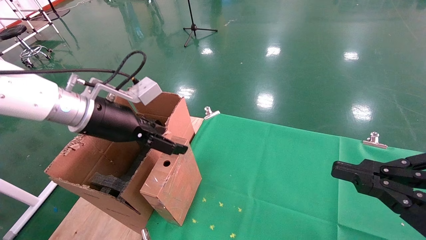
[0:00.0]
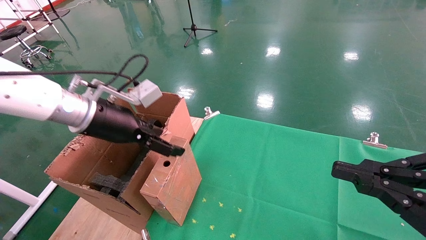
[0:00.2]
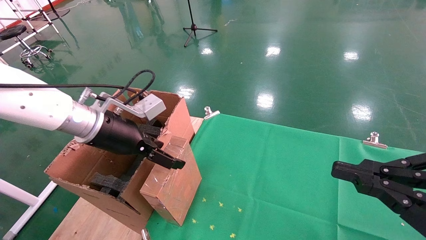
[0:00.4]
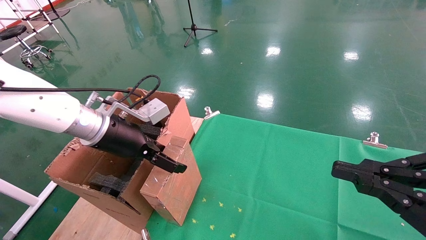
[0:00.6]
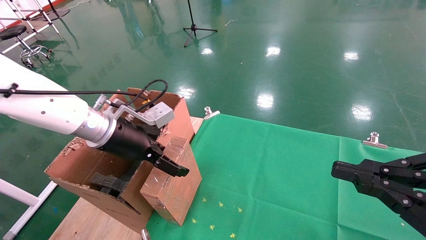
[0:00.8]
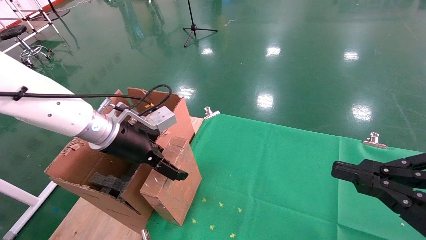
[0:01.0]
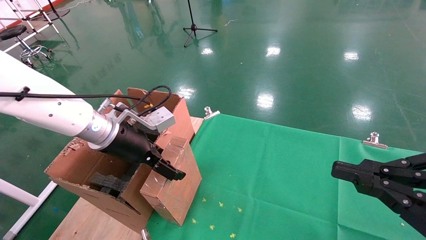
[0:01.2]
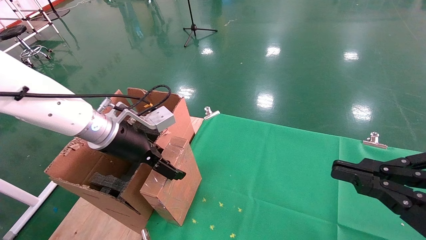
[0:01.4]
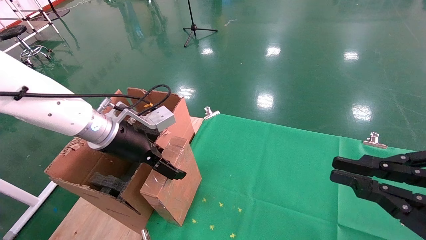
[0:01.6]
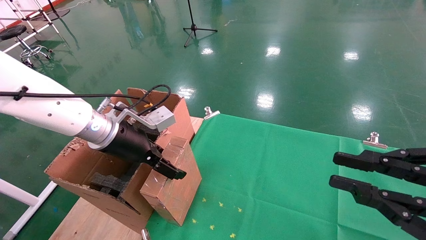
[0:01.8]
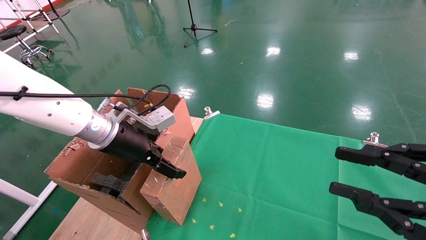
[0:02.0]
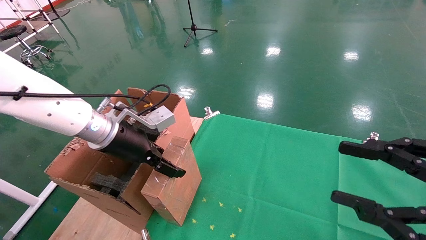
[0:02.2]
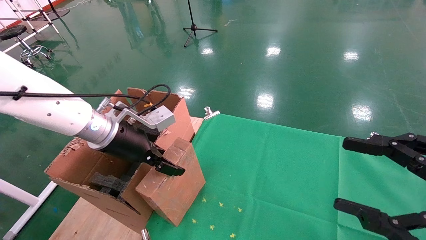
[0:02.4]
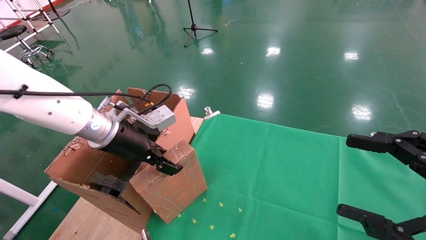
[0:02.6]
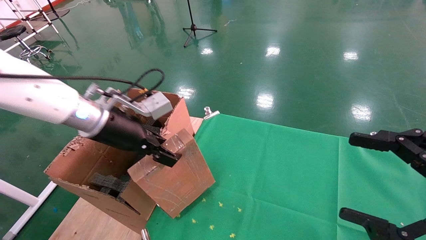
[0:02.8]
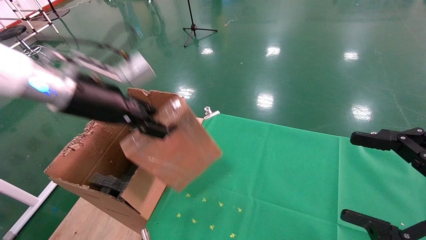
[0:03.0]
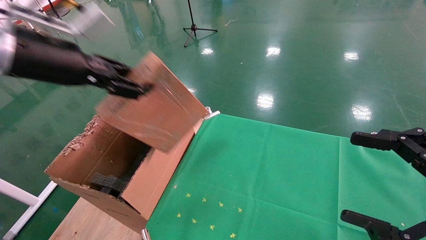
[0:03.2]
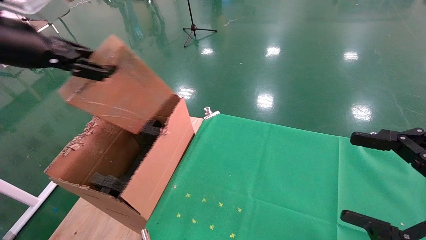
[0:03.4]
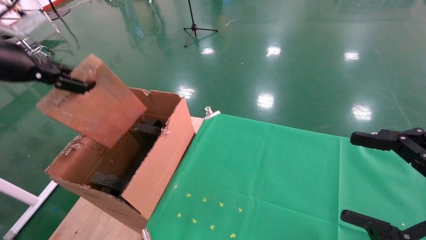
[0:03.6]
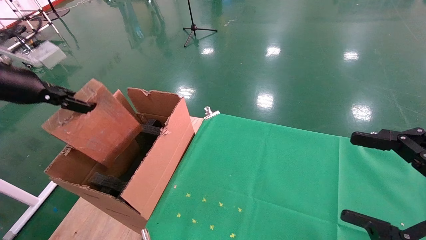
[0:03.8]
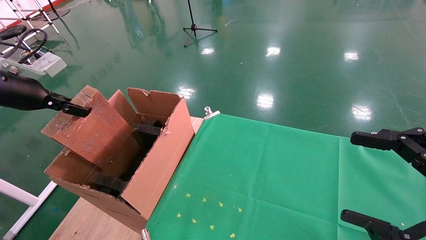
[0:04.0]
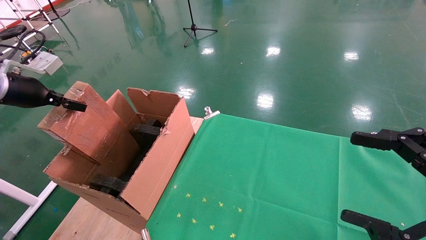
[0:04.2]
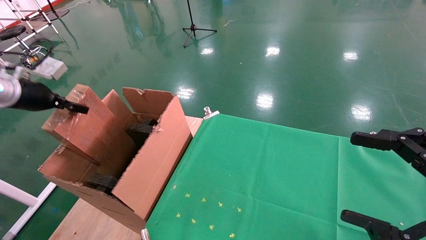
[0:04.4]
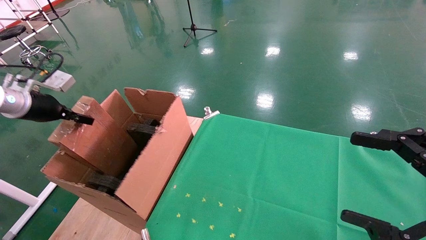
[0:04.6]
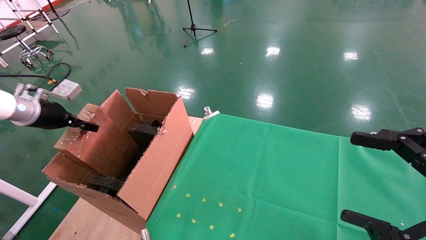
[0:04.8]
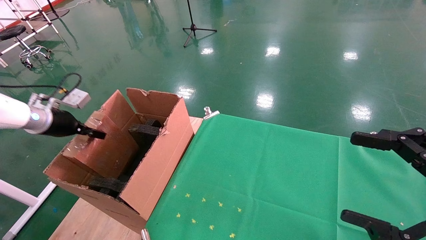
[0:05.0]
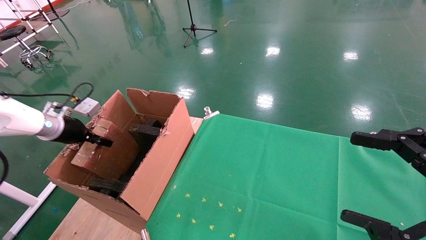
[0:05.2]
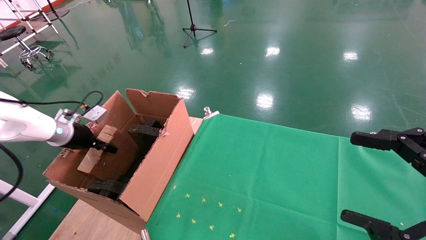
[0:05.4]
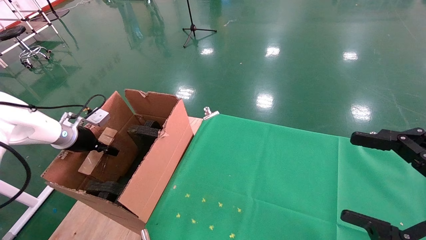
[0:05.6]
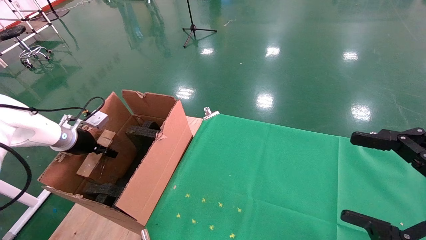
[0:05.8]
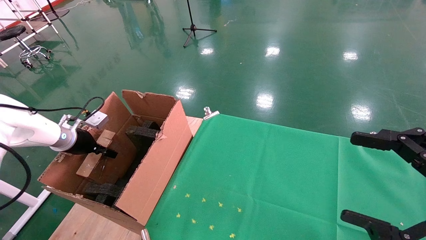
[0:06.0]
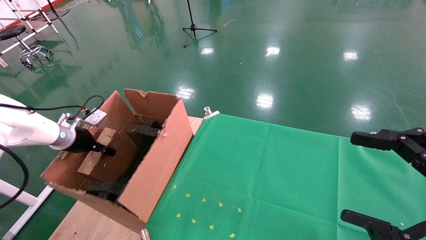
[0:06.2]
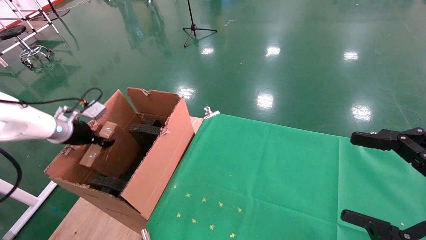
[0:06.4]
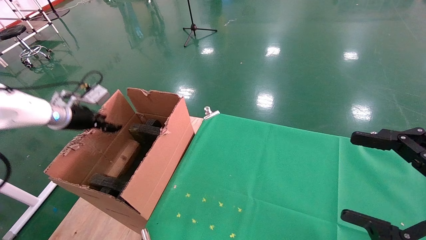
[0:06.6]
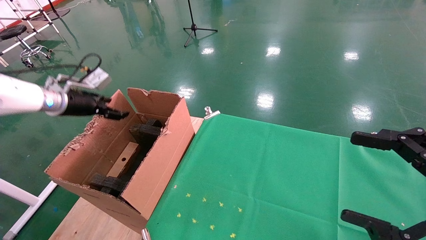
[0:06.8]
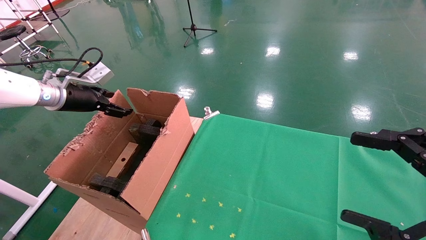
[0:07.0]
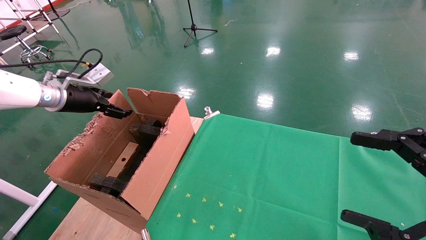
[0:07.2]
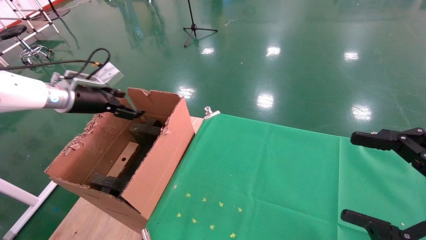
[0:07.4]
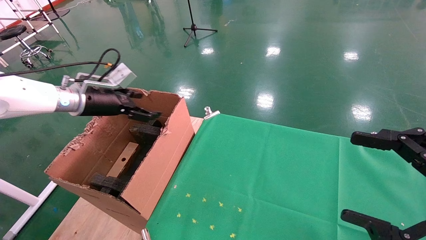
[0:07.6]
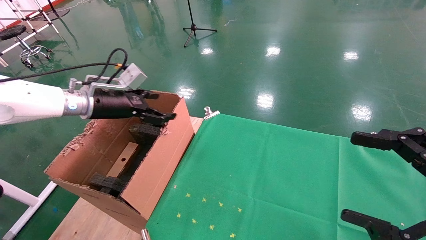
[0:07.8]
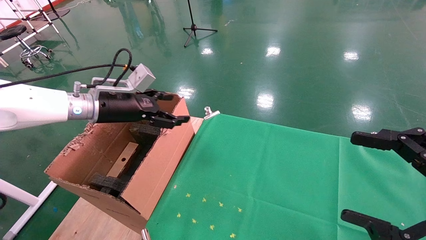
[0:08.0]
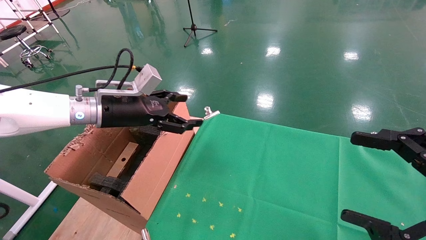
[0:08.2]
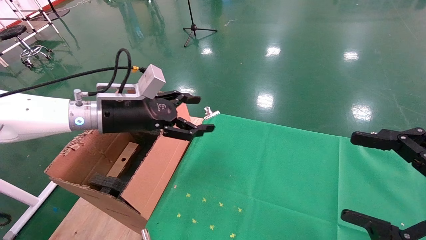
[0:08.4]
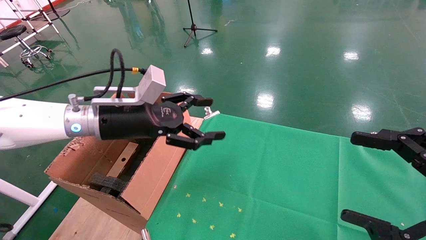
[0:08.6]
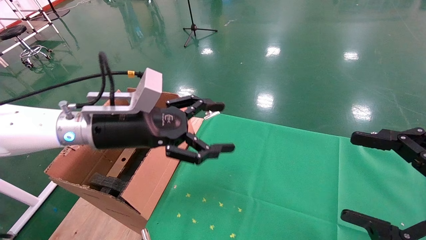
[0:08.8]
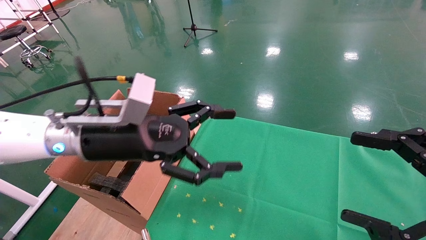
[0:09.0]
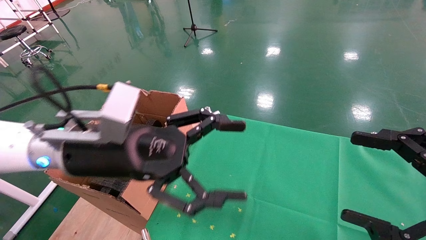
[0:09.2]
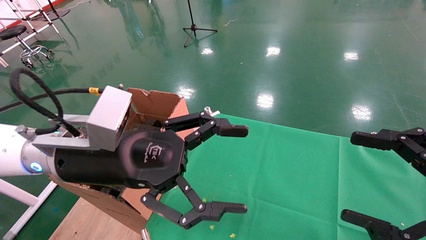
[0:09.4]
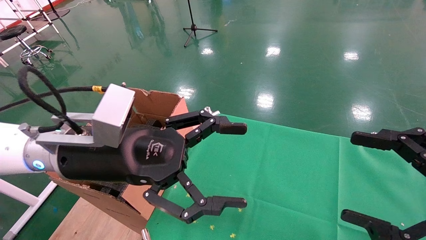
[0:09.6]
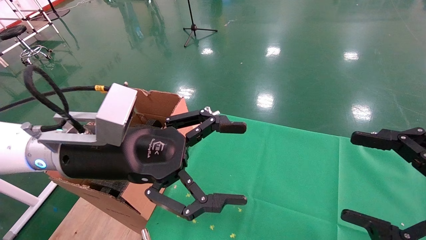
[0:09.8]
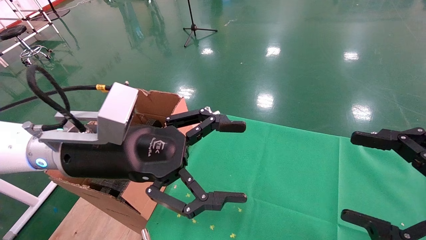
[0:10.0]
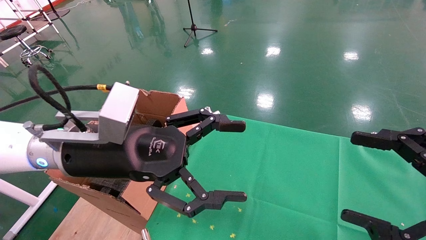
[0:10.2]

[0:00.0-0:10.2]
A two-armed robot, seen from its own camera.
Task of the whole recording: using a robotic arm to pick up a cardboard box and palace it the carton.
Step, 0:00.0 to 0:02.4: Pick up the mouse and the power cord paper box.
Step, 0:02.6 to 0:07.0: Place the mouse and the power cord paper box into the container.
0:00.0 to 0:01.4: The grippers make only small movements.
0:01.4 to 0:03.0: The right gripper opens its fingers. Meanwhile the left gripper shifts roughly 10 cm upward, and closes up.
0:03.0 to 0:04.4: The left gripper travels to the left by roughly 20 cm.
0:04.4 to 0:05.8: The left gripper travels downward and forward by approximately 15 cm.
0:05.8 to 0:07.2: The left gripper goes about 10 cm upward, and opens up.
0:07.2 to 0:08.8: The left gripper moves to the right and backward, about 25 cm.
0:08.8 to 0:10.2: The left gripper travels backward by roughly 5 cm.

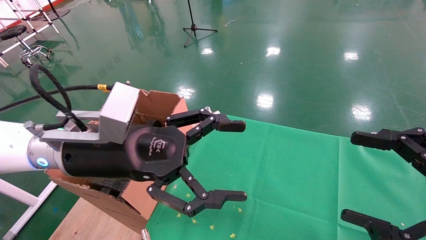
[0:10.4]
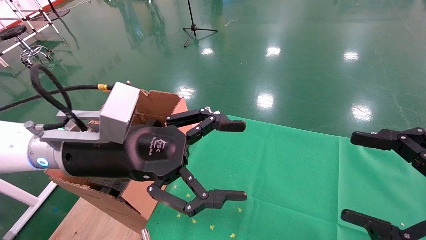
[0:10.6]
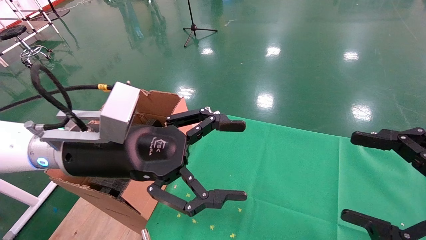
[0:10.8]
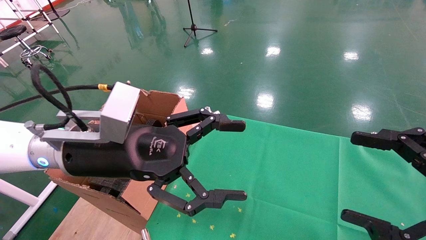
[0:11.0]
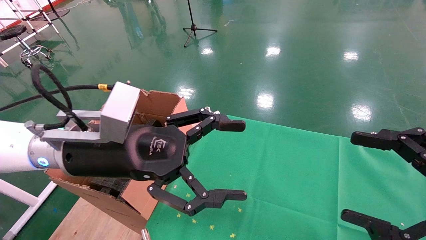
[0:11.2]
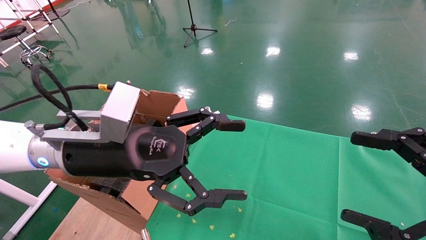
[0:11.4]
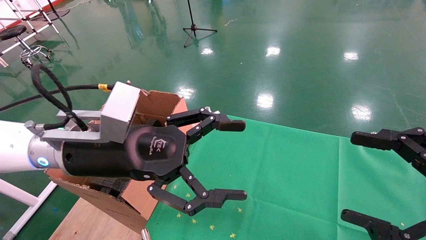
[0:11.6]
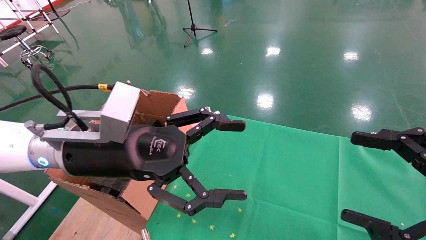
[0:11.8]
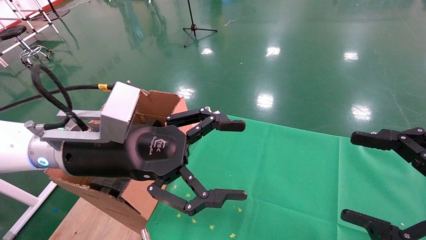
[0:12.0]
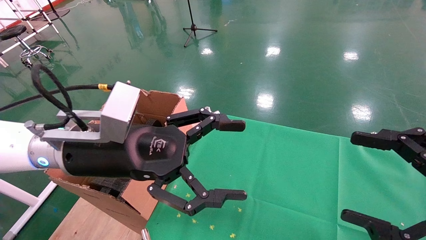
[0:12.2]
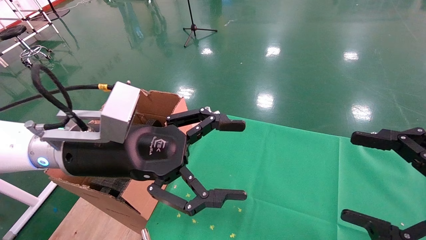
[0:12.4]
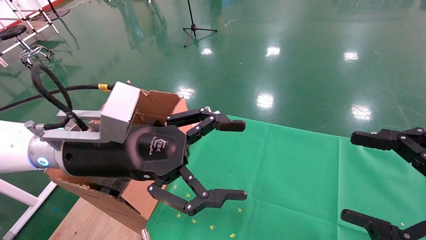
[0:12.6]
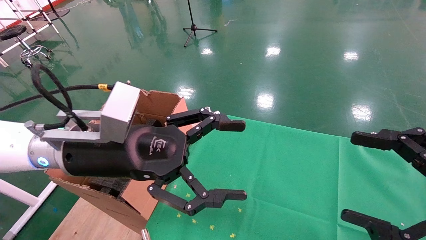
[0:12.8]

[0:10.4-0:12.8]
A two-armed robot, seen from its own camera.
Task of the whole recording: using a robotic arm to pick up a cardboard box and palace it the carton.
0:10.4 to 0:12.8: The two grippers keep their place.
